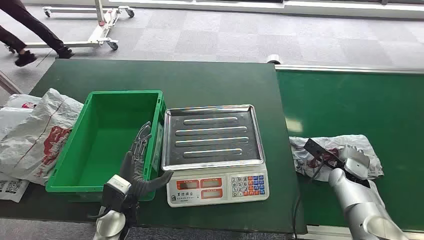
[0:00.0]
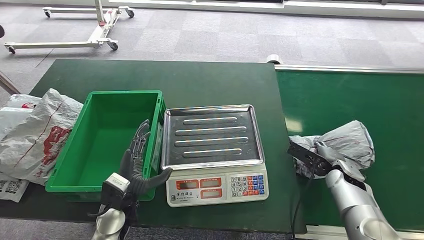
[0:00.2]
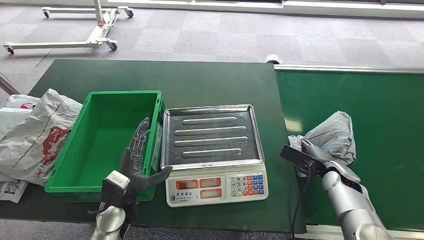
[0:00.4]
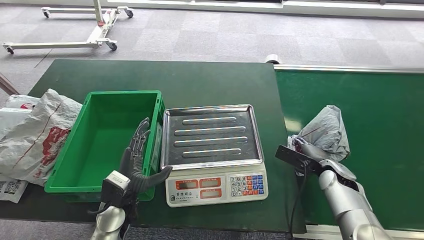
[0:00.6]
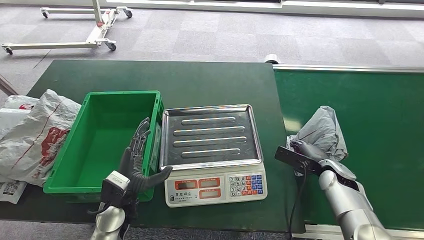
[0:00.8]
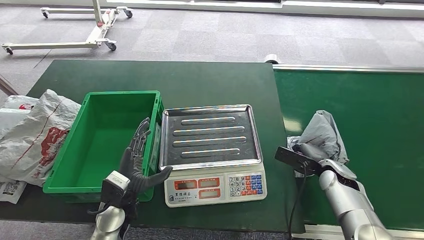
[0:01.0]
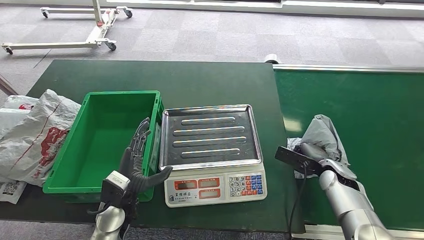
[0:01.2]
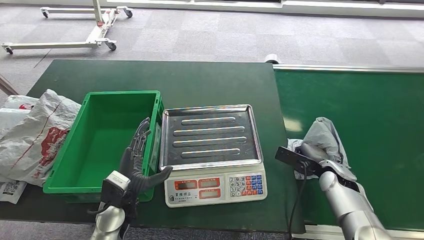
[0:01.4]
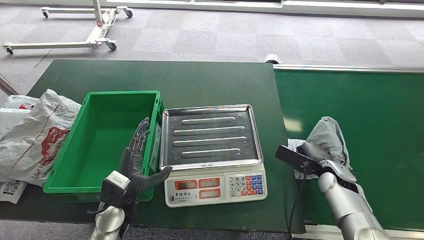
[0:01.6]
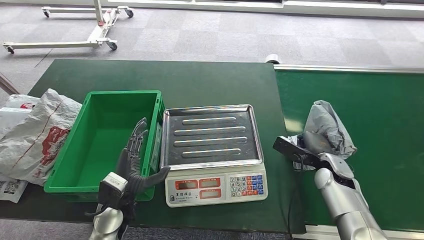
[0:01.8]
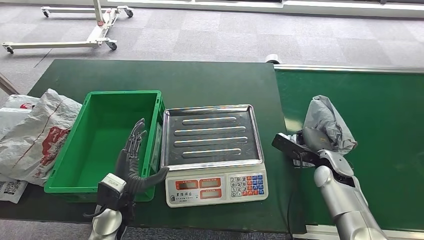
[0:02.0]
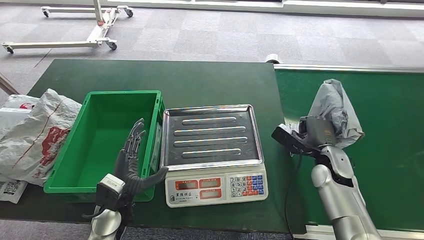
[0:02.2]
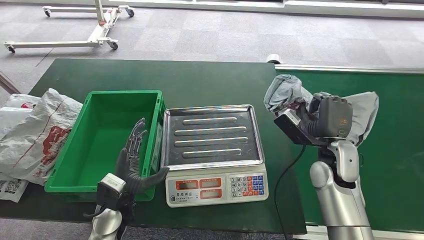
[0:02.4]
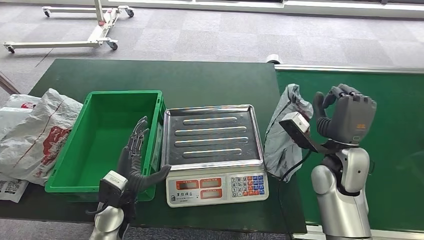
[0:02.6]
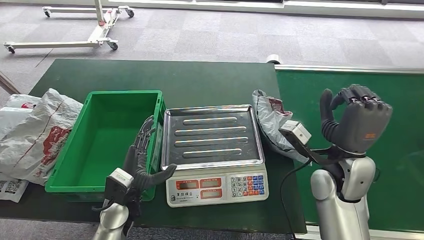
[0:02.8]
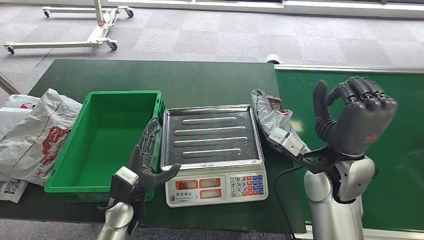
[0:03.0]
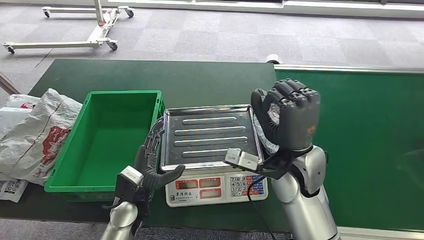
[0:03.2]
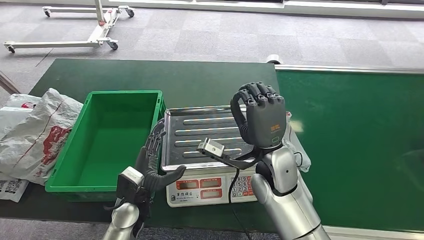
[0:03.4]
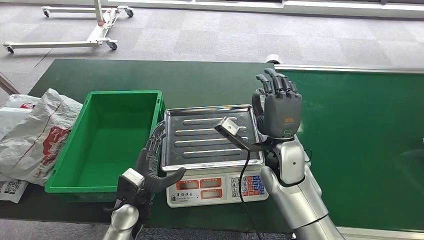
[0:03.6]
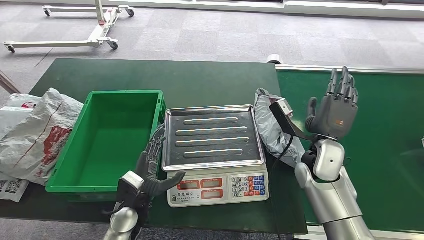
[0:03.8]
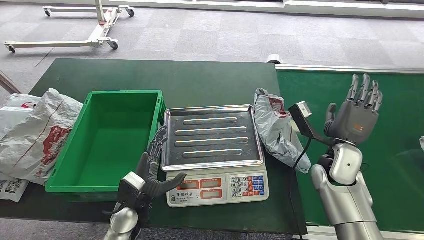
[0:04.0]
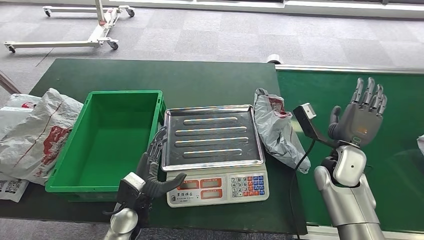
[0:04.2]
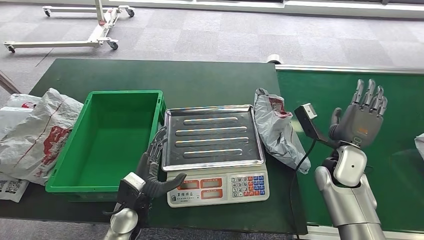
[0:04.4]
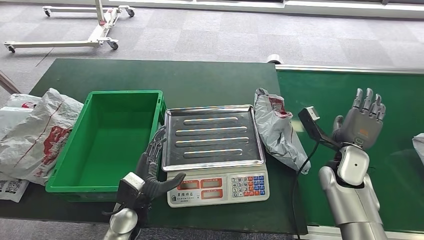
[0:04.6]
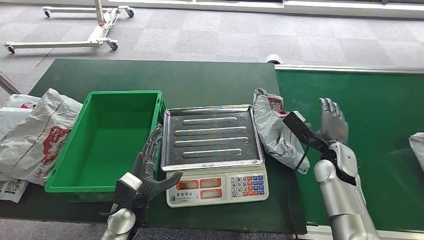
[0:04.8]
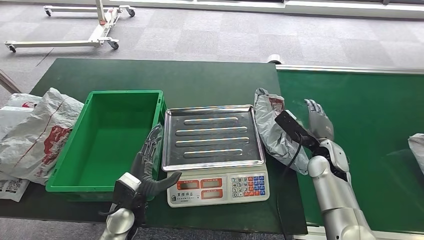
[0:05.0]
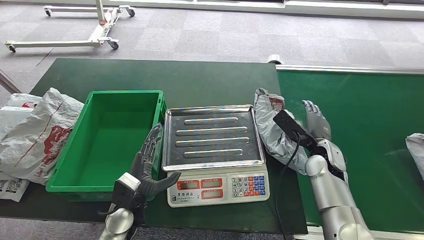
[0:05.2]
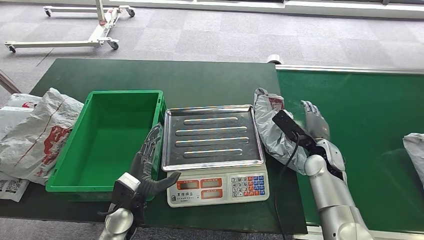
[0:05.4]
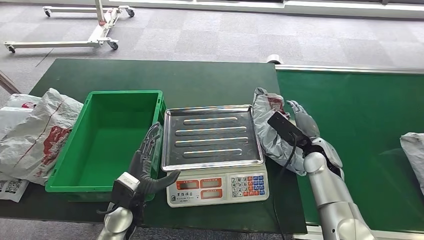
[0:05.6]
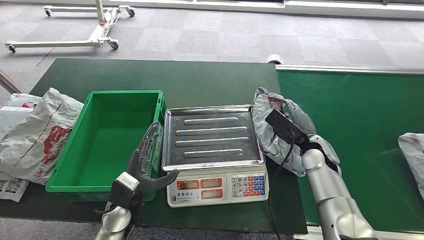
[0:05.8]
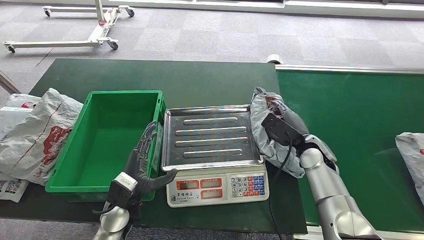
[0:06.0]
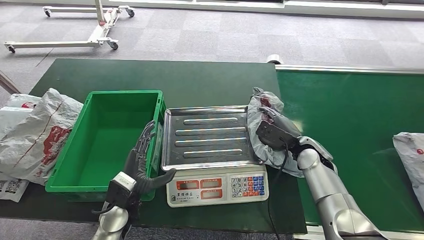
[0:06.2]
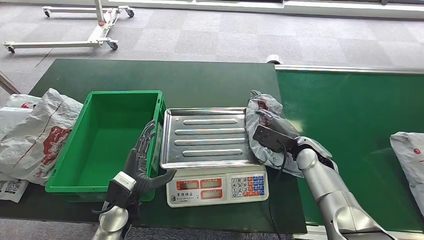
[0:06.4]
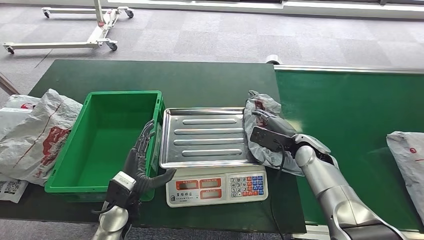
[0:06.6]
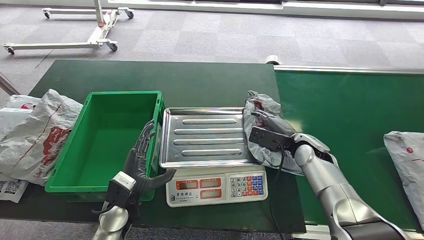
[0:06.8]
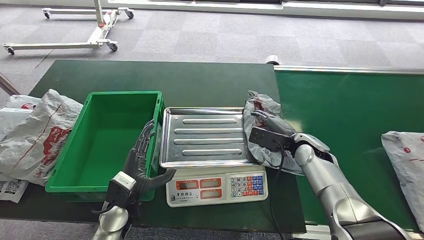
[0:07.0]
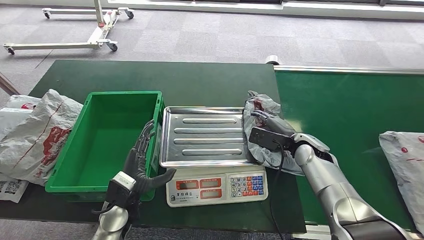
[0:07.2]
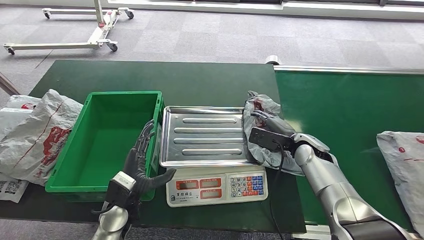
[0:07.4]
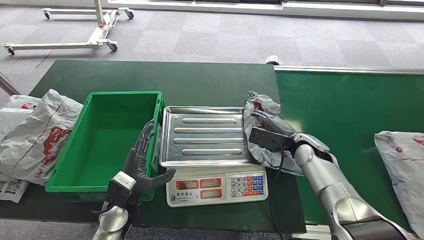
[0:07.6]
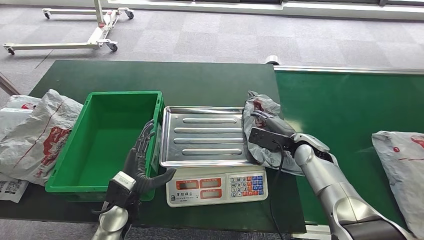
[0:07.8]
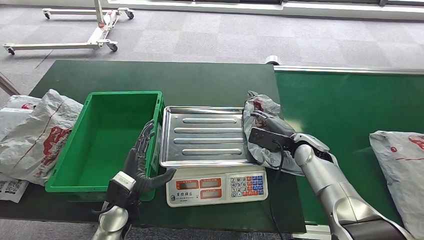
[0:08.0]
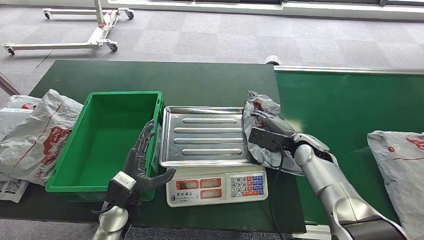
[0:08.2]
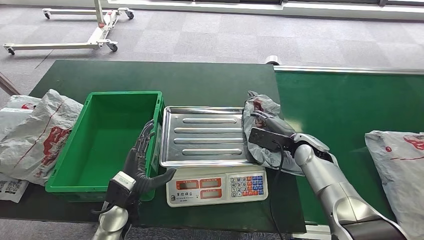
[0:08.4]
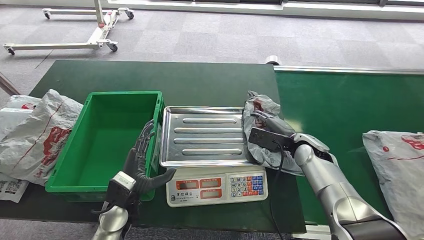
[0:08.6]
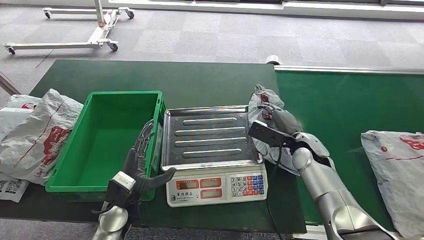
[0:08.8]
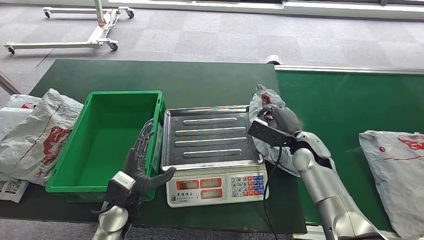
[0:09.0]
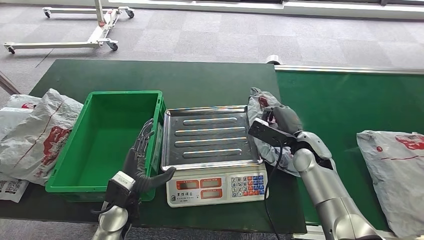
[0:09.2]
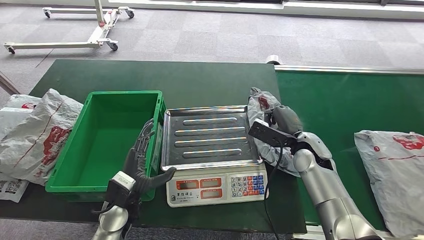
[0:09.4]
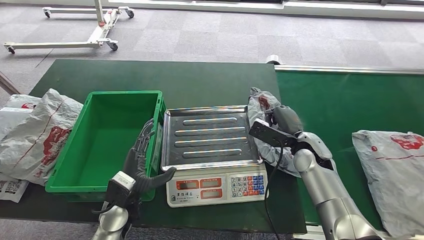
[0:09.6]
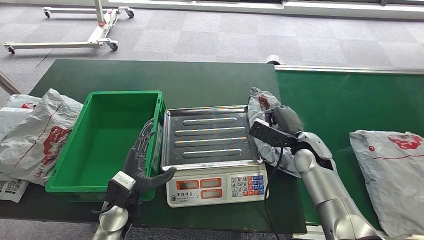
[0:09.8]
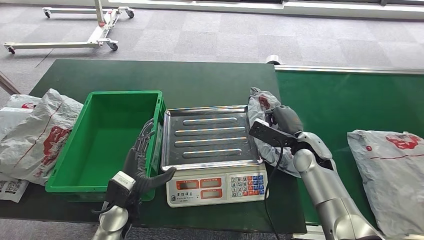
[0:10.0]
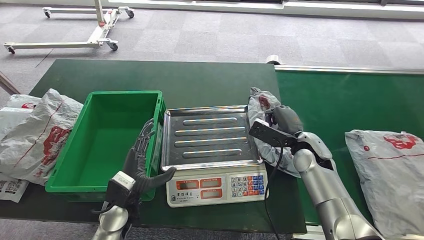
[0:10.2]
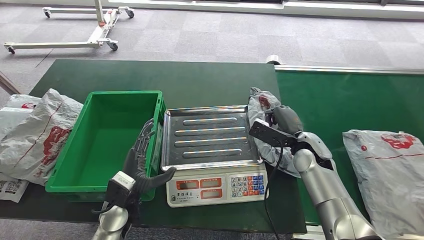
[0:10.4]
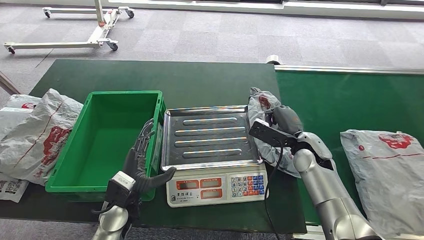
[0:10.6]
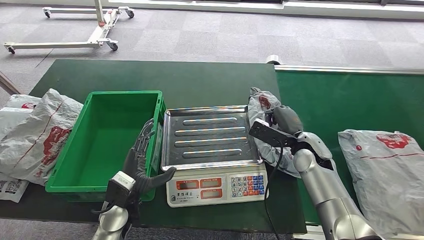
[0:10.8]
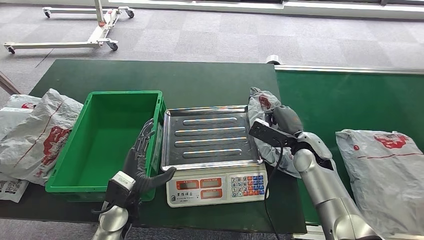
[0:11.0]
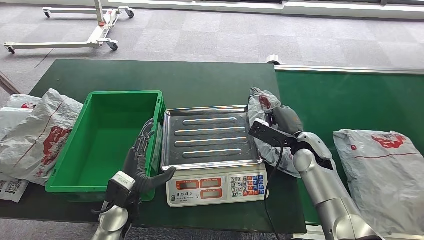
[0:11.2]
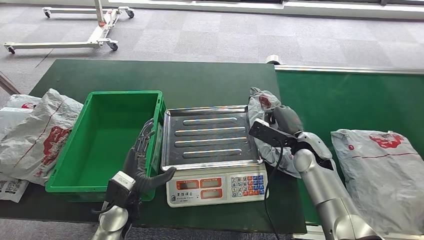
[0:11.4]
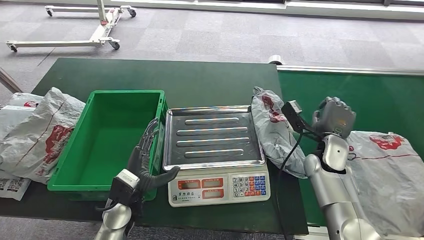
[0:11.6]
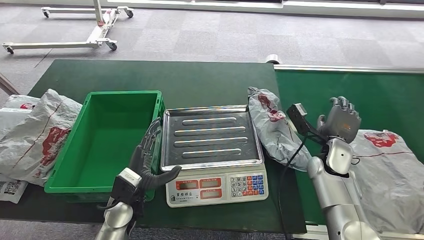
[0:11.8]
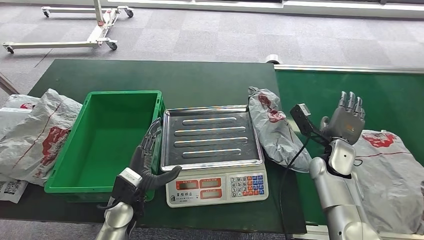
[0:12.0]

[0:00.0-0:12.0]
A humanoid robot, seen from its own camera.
Step, 0:00.0 to 0:02.4: Pick up the package from the conveyor belt.
0:01.6 to 0:03.0: The right hand travels upward and to the left by about 20 cm.
0:03.0 to 0:04.4: The right hand is displaced downward, to the right and forward by about 15 cm.
0:04.4 to 0:06.0: The right hand shifts by some 5 cm.
0:09.0 to 0:10.4: Both hands stay put.
0:10.4 to 0:12.0: The right hand heads to the right, covering some 5 cm.

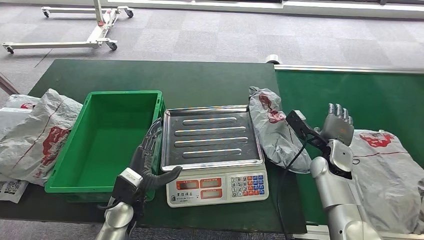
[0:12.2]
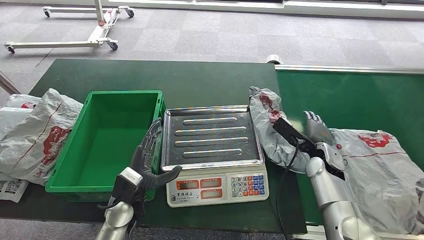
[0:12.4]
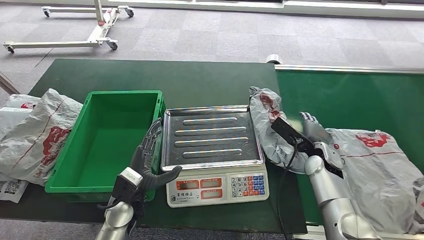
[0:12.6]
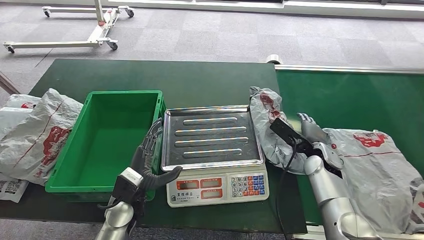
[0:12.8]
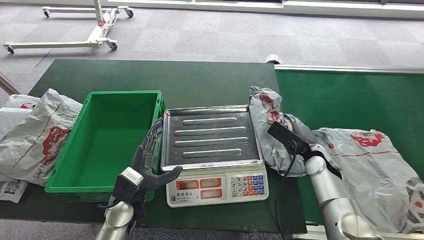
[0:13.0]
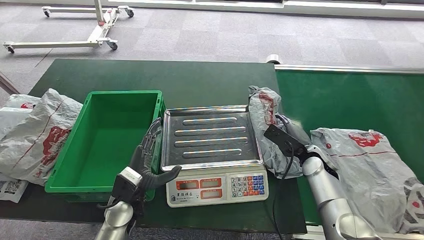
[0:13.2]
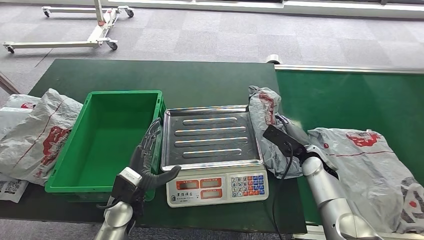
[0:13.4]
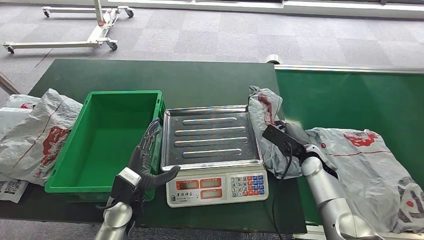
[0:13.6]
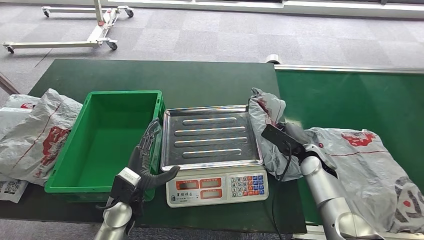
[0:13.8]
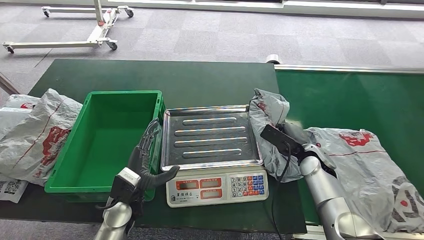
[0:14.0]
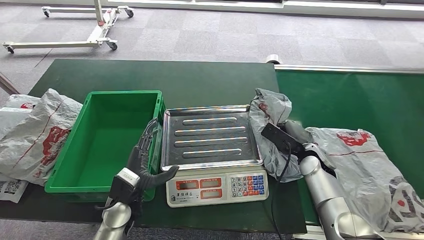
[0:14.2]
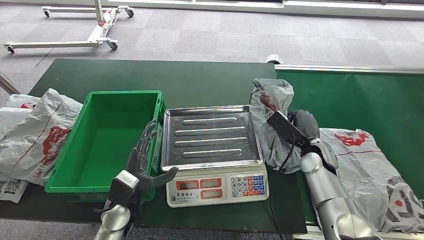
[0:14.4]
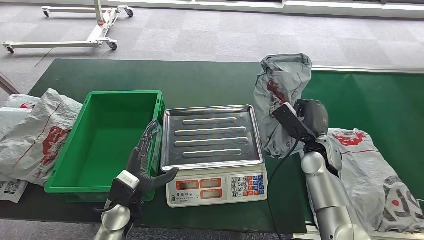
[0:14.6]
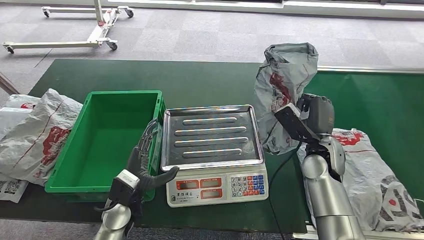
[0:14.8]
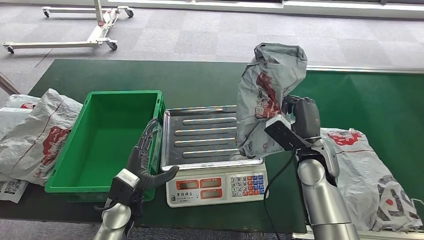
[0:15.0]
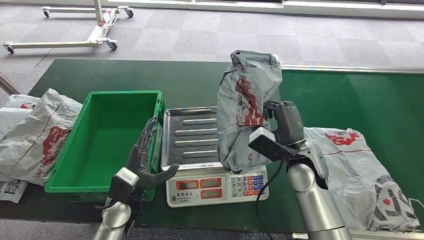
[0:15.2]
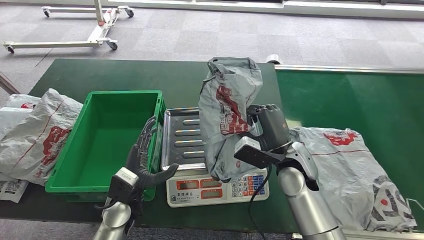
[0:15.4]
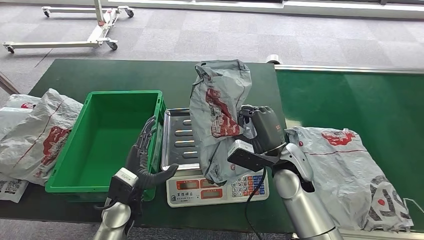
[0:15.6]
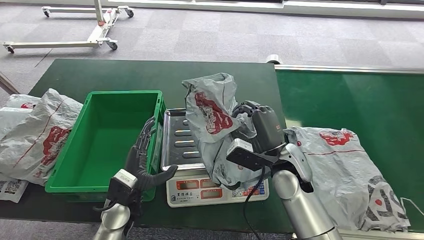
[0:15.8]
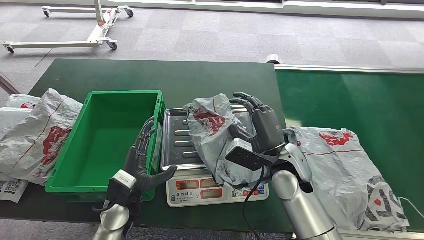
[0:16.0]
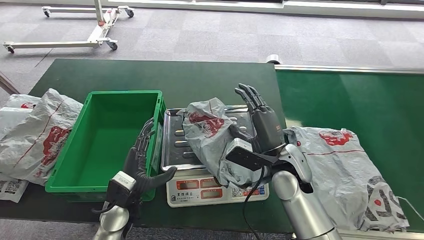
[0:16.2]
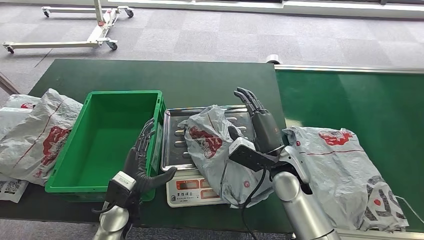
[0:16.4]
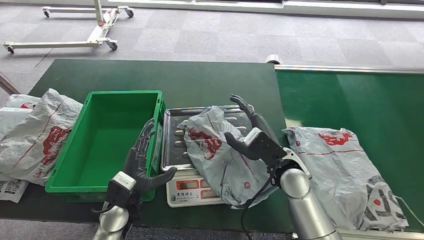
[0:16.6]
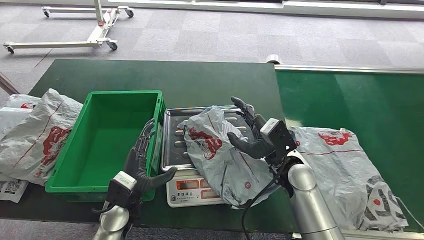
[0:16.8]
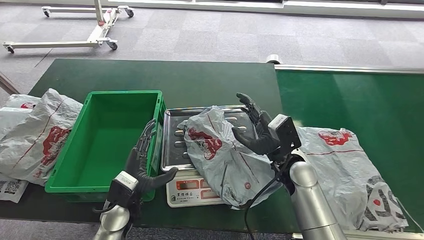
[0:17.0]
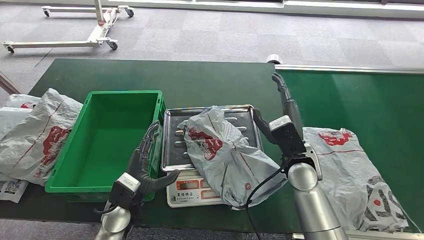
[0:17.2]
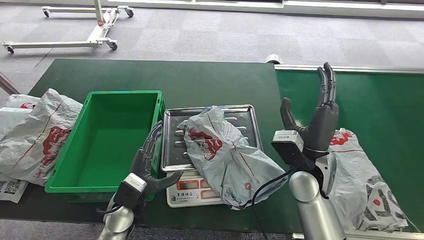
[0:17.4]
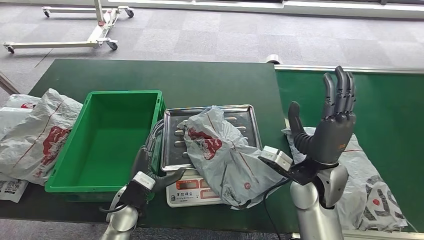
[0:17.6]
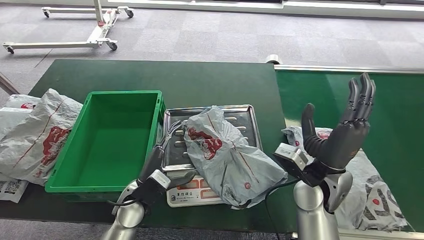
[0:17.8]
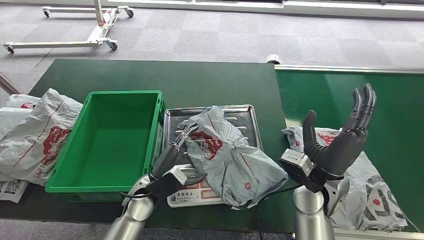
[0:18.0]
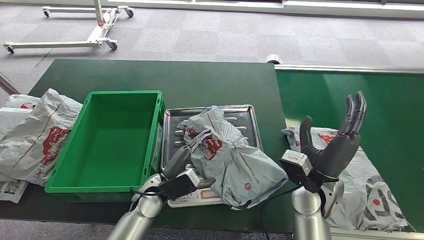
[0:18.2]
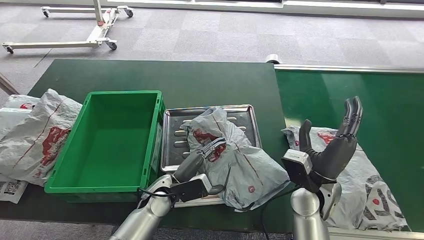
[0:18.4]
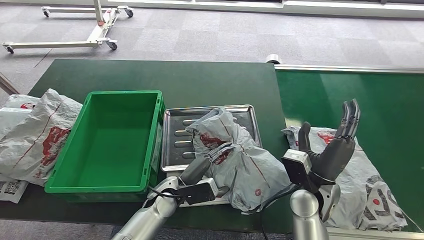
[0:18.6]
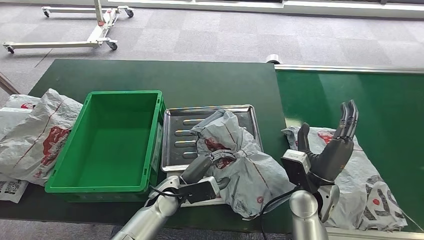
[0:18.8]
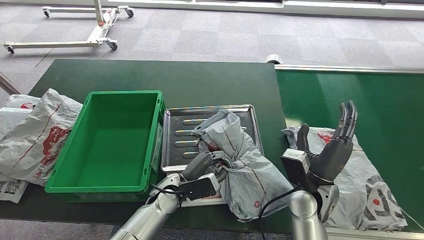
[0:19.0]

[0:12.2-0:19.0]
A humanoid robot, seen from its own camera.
Step, 0:15.2 to 0:17.6: Place the package onto the inbound machine.
0:13.6 to 0:15.0: The right hand shifts some 10 cm upward.
0:15.0 to 0:16.2: The right hand moves to the left, about 10 cm.
0:16.2 to 0:17.6: The right hand changes place by some 5 cm.
0:17.6 to 0:19.0: The left hand moves to the right, roughly 10 cm; the right hand moves downward, roughly 5 cm.
